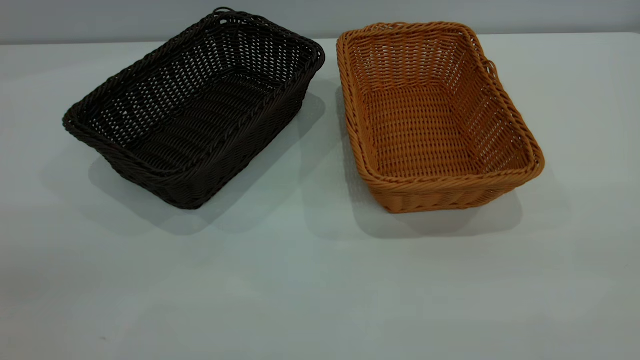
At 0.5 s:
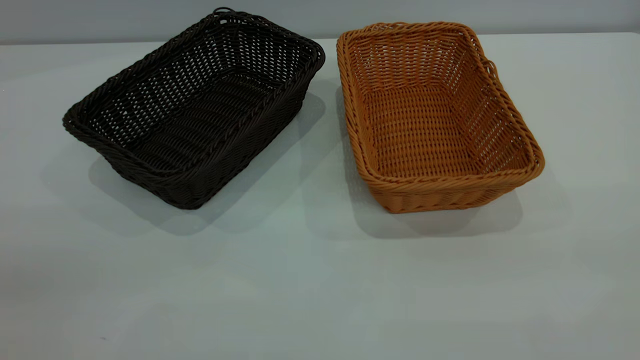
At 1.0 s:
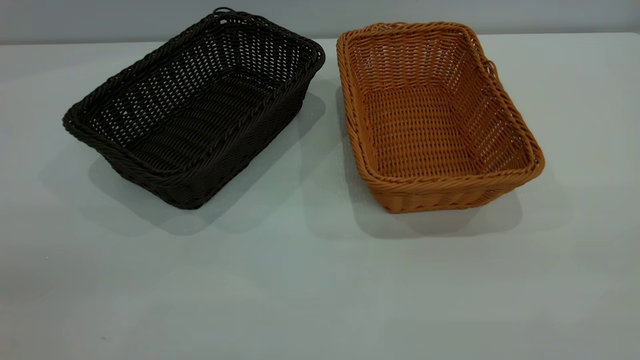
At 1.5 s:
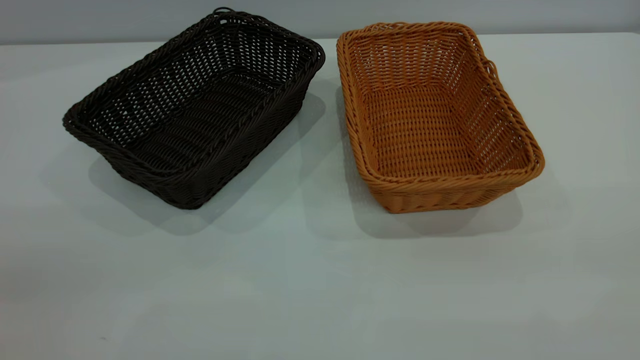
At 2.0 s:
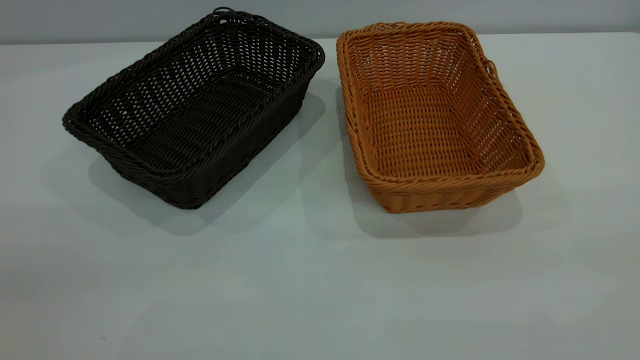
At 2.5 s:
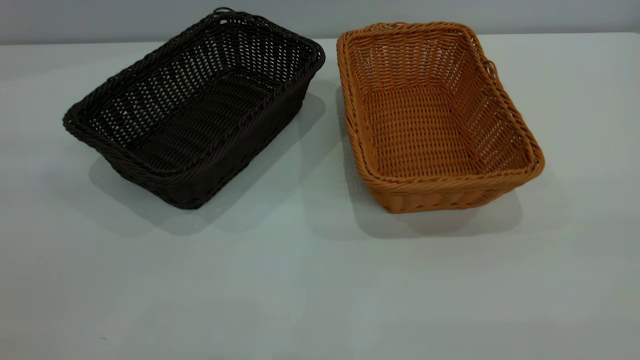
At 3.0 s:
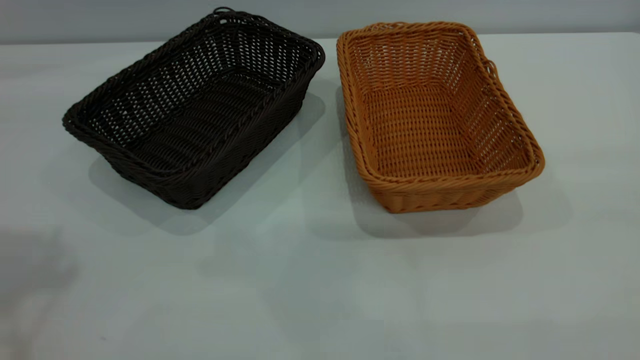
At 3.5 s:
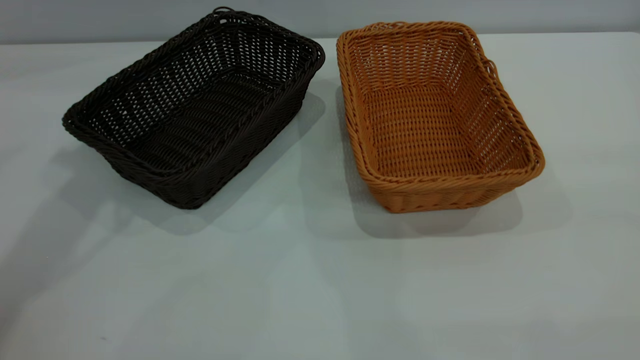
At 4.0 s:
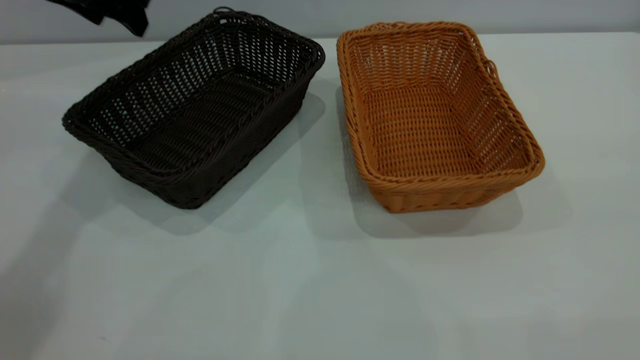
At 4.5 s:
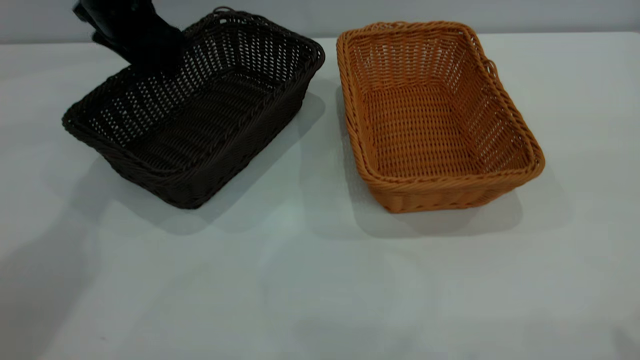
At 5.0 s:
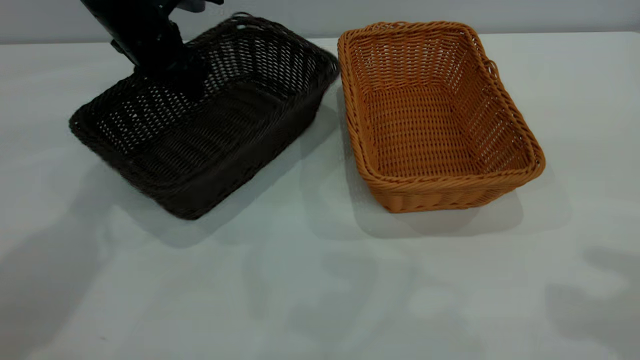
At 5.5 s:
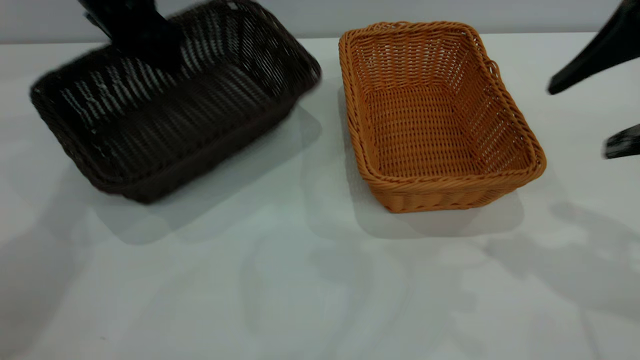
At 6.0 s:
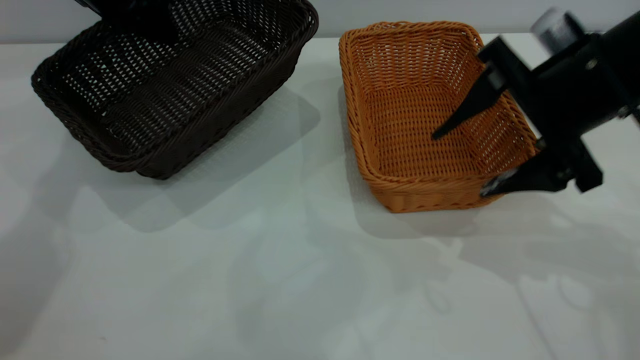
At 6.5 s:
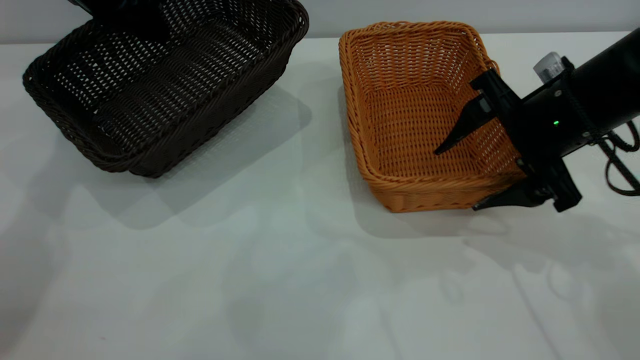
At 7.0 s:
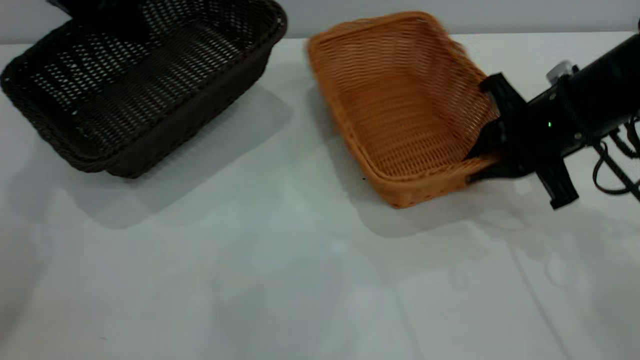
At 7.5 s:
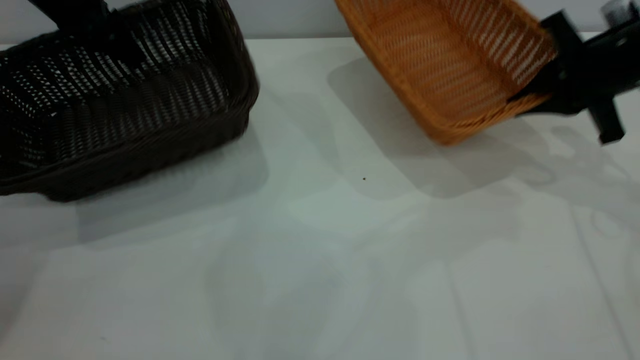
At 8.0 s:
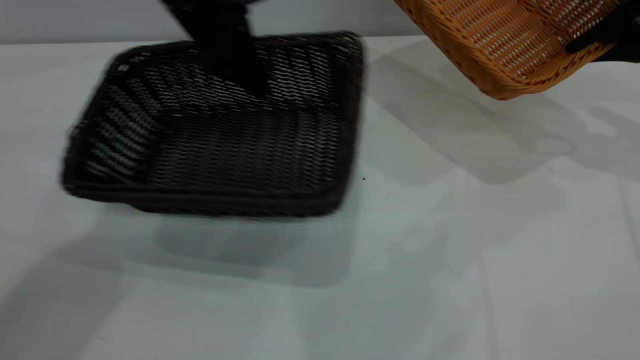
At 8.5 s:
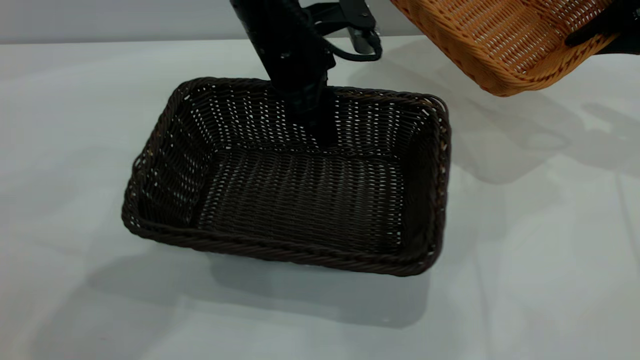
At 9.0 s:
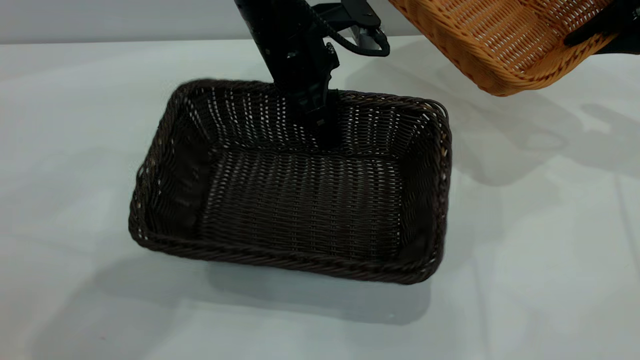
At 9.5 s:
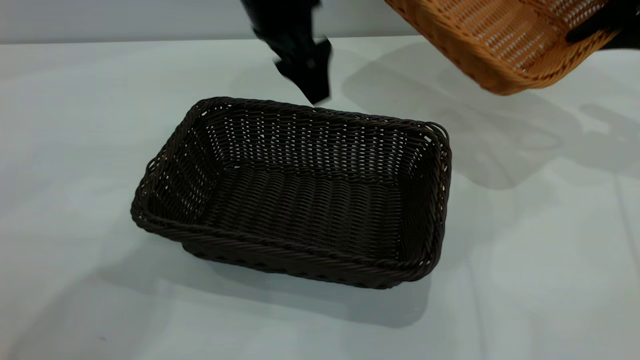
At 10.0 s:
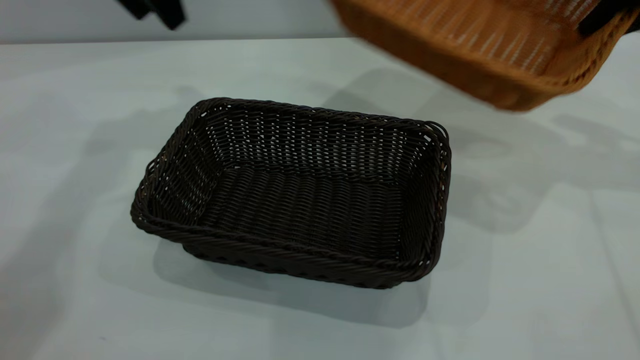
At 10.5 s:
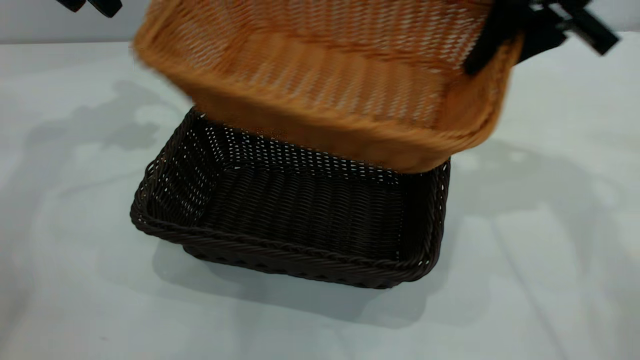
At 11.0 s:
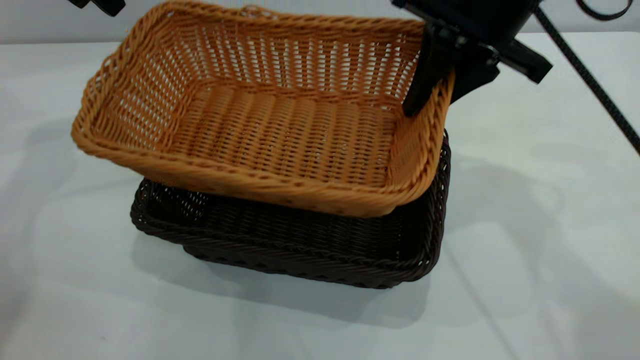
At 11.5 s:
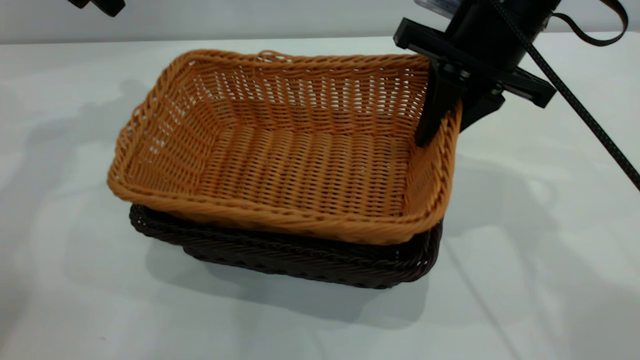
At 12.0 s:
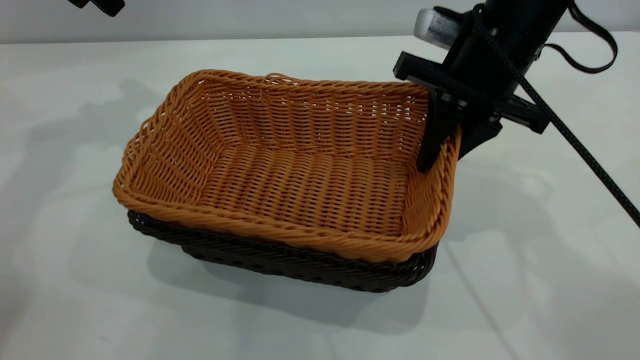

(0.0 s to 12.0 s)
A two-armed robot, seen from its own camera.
Task of the whole recording: the left gripper grasp the black basket and place it in the center of the table, the right gripper grasp the brown basket and place it inside the black one.
Step, 0.0 s - 7.0 s: Pick up the light basket with the right gripper.
Step, 7.5 s - 9.5 s: Move the dark basket to the center of view.
0.0 s - 2.0 s: Both grippers stay about where they are.
2.0 s - 4.0 s: The left gripper heads forward, covering approximately 50 cm.
4.0 s - 6.0 s: The left gripper closes its fingers. The right gripper goes some 30 cm forward and downward.
6.0 s - 8.0 s: The right gripper moves to the right and forward, some 20 cm, and closes; the left gripper is displaced to the right and backward by about 15 cm.
8.0 s - 10.0 s: The right gripper moves upward, some 5 cm; the left gripper travels to the left and upward by about 15 cm, and opens its fingers.
10.0 s - 12.0 s: The left gripper shifts roughly 5 cm to the left. The right gripper goes roughly 20 cm to the left and downward.

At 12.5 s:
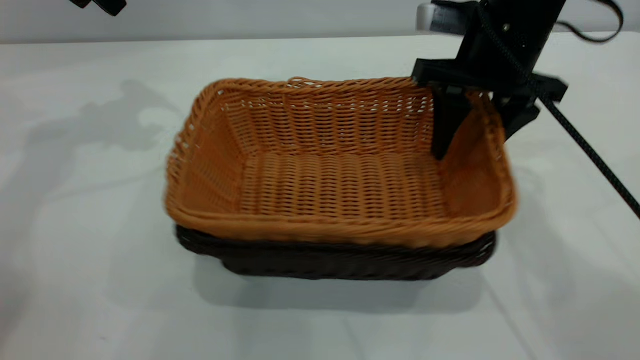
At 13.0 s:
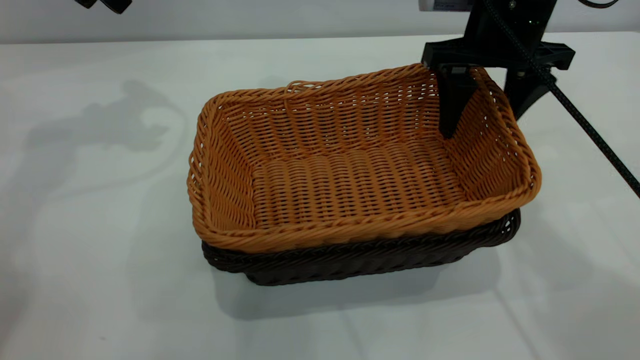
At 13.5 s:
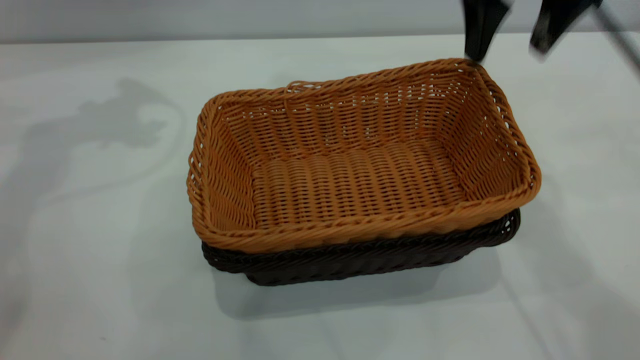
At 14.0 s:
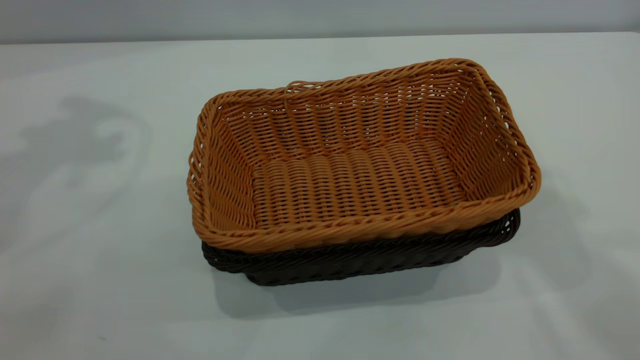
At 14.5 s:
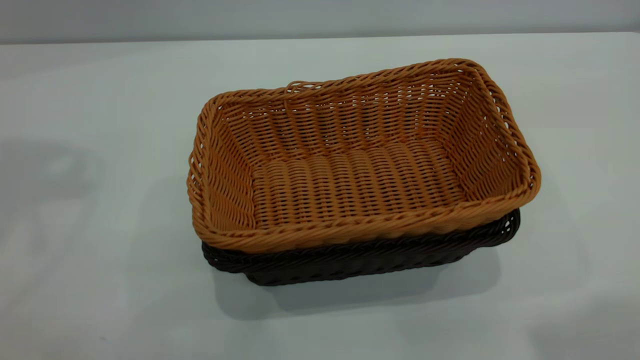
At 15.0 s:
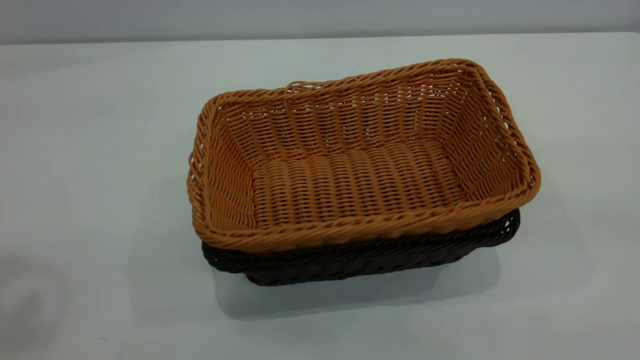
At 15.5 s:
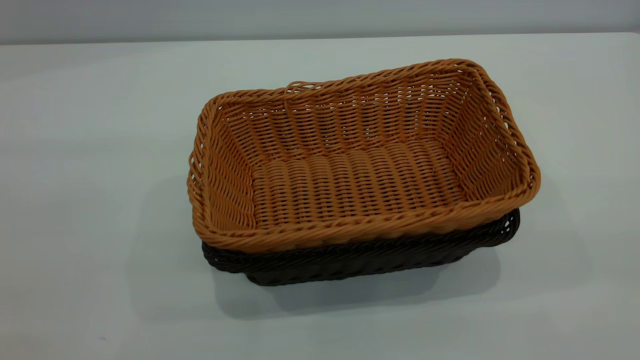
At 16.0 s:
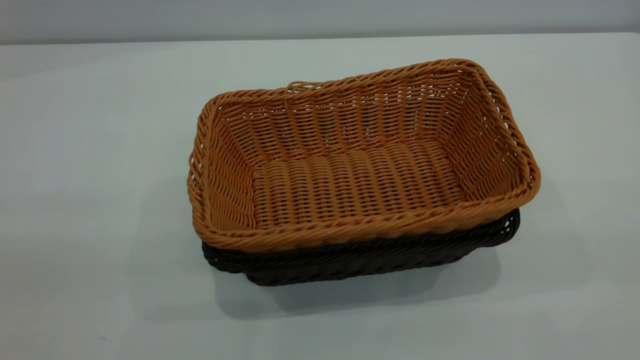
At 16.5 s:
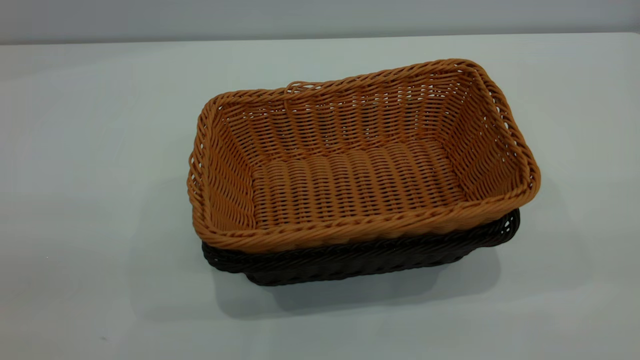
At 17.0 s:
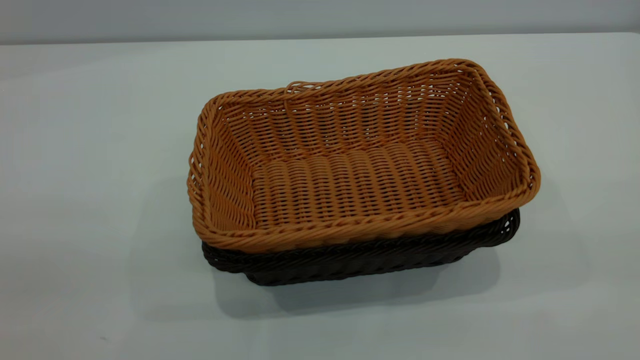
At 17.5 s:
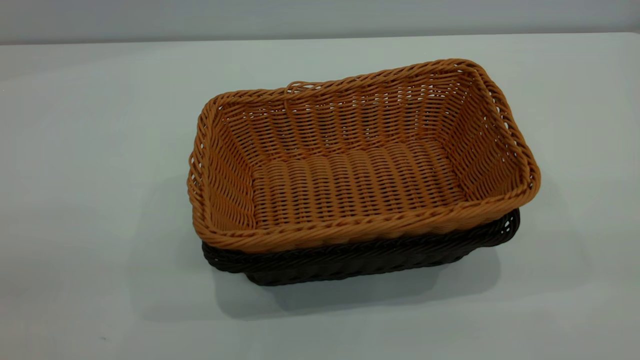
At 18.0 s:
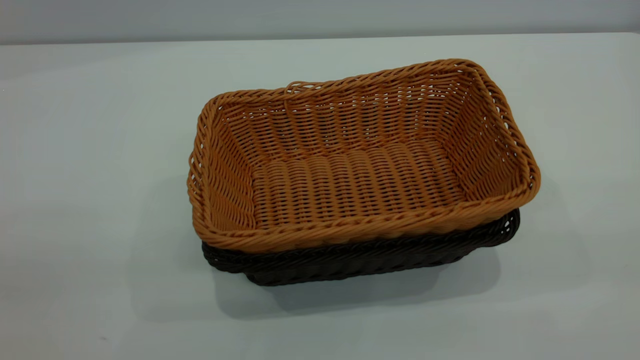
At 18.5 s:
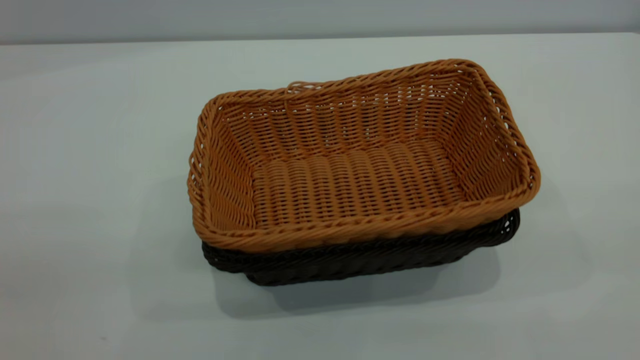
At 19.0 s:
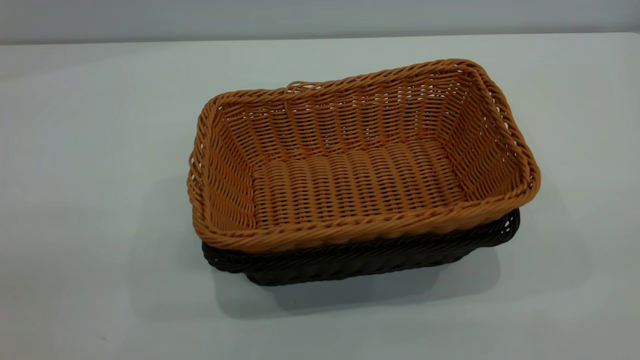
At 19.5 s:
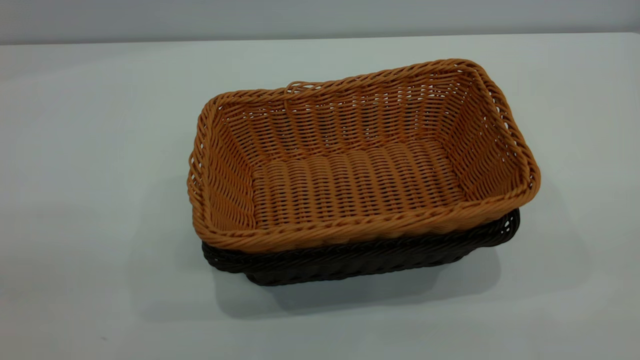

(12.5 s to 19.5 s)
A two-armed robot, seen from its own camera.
Task of the whole recording: the left gripper grasp the black basket and place it in the center of the table, the right gripper grasp the brown basket and place it inside the black one.
12.5 s - 14.5 s: Both grippers travel together upward and backward, some 35 cm. The right gripper opens up.
